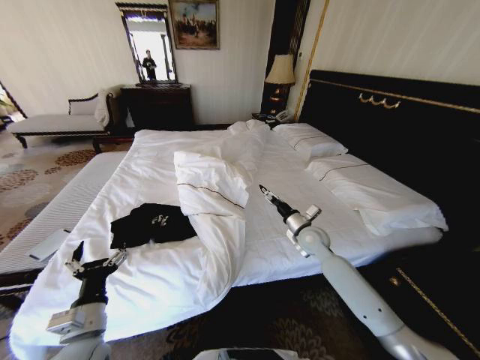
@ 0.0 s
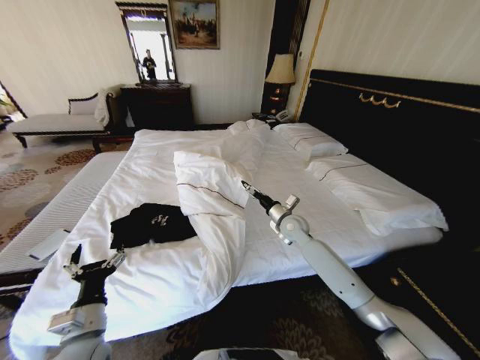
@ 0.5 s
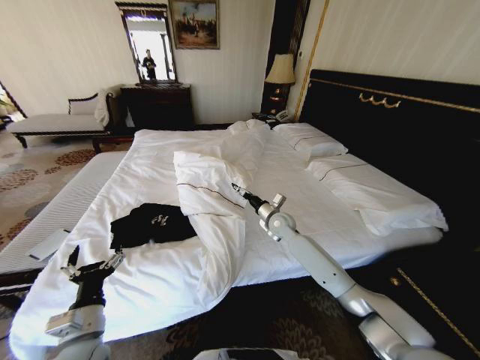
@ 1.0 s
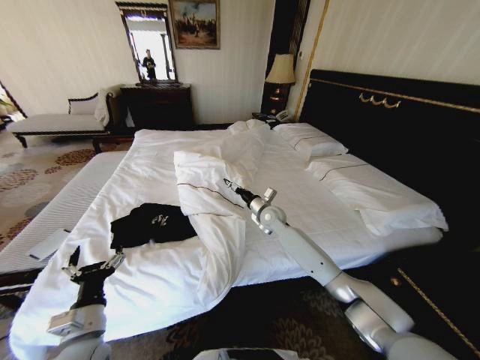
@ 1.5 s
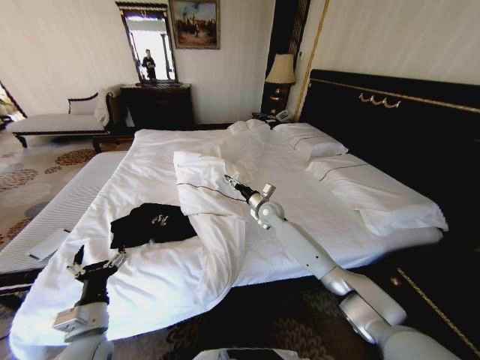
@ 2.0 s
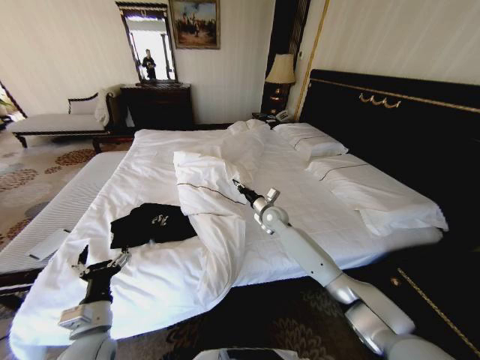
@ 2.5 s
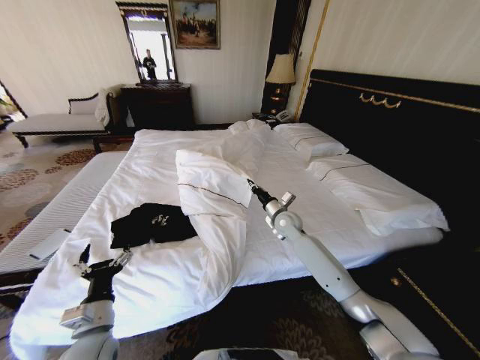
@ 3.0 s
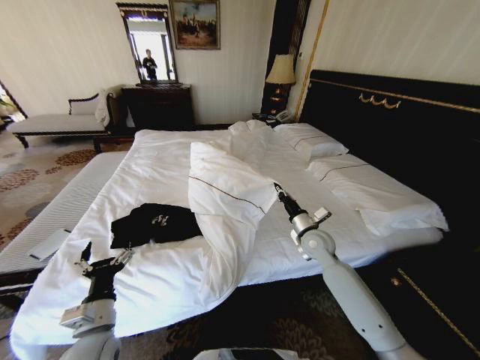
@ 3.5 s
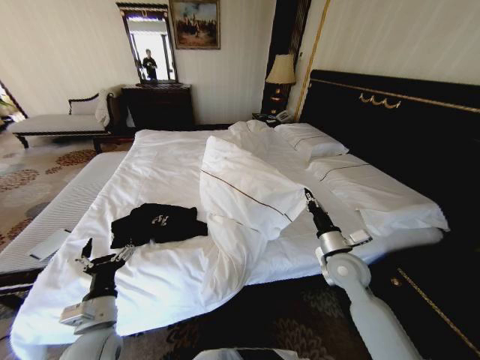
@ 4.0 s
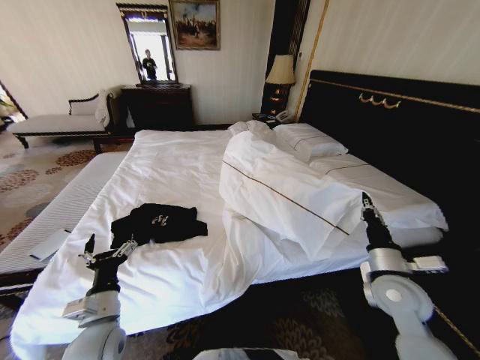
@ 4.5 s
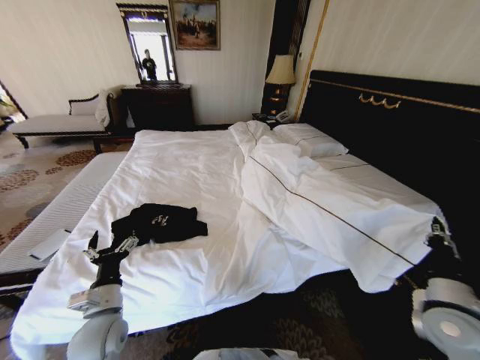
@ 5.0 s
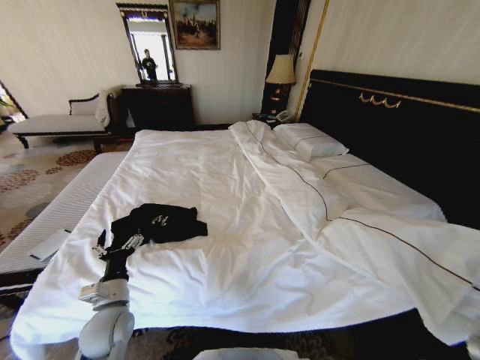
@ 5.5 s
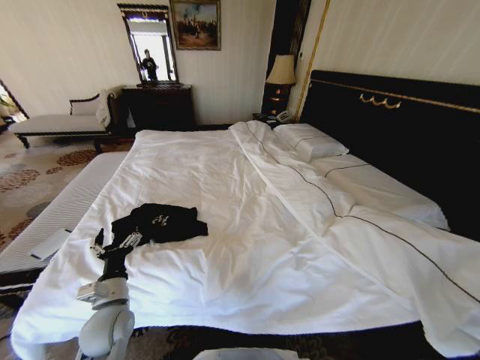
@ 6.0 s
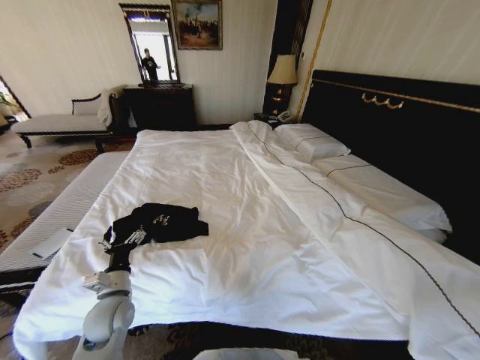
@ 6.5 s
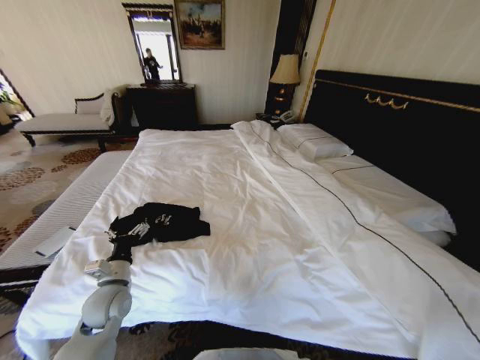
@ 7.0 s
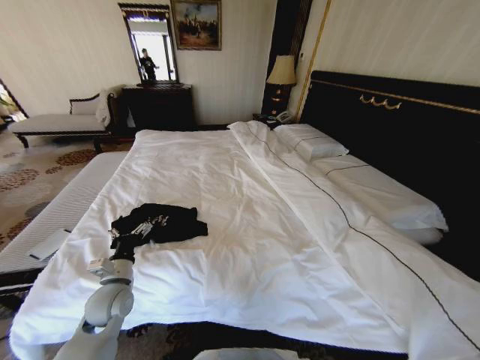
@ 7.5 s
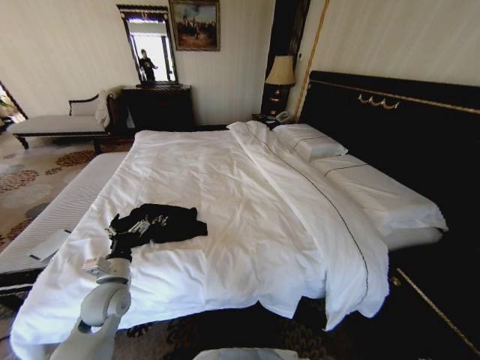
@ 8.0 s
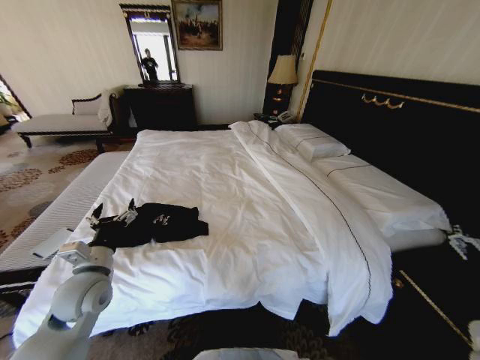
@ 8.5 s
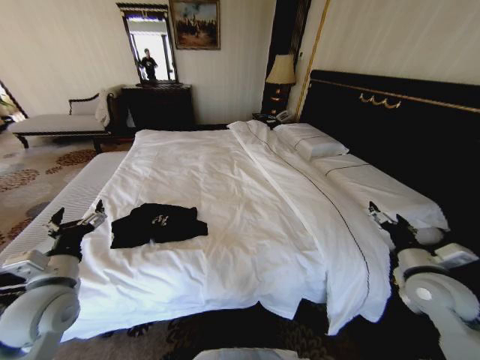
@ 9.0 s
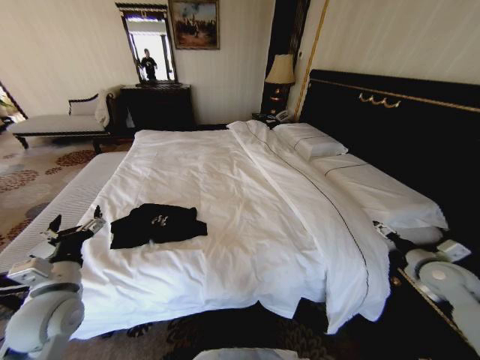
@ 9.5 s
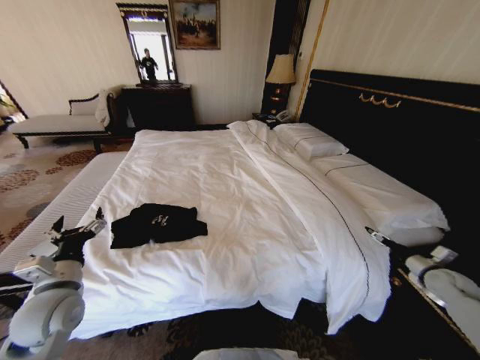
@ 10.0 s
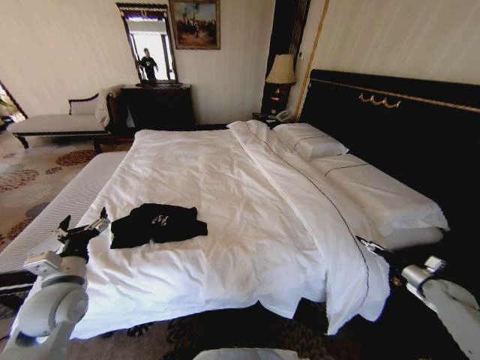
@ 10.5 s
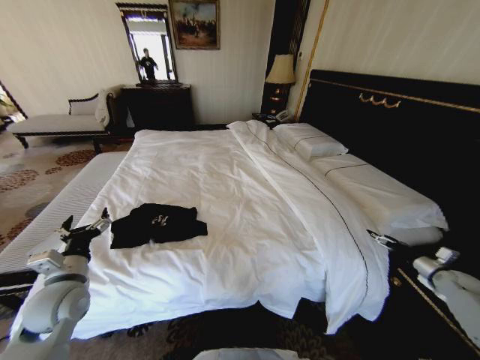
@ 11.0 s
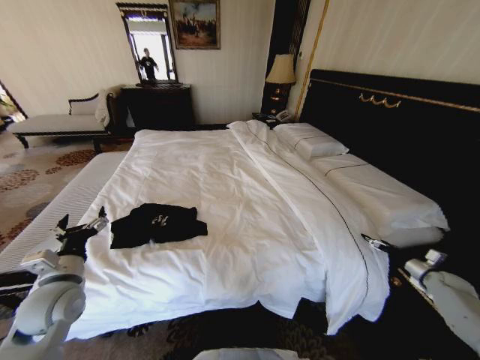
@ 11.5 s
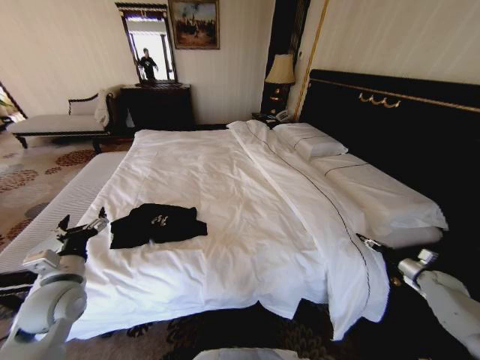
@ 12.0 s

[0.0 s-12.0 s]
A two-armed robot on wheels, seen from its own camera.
Task of the whole recording: Fold the clothes on the bed.
0.0 to 2.0 s: The right gripper travels forward and to the left by some 15 cm.
2.0 to 4.0 s: The right gripper travels backward and to the right by some 25 cm, and closes.
4.0 to 6.0 s: The right gripper goes roughly 30 cm backward and to the right. Meanwhile the left gripper ends up about 5 cm from where it was.
6.0 to 8.0 s: The right gripper is displaced backward by some 10 cm, and opens its fingers; the left gripper moves forward, roughly 5 cm.
8.0 to 10.0 s: The right gripper shifts about 35 cm forward and to the right, and opens up. The left gripper heads upward and to the left, covering approximately 10 cm.
10.0 to 12.0 s: The right gripper shifts roughly 10 cm downward and to the right, and closes its fingers.

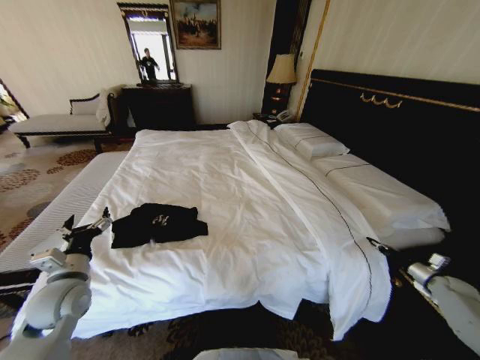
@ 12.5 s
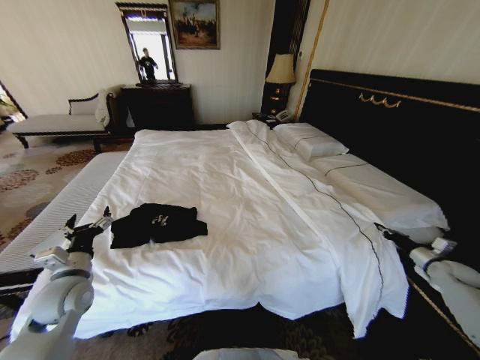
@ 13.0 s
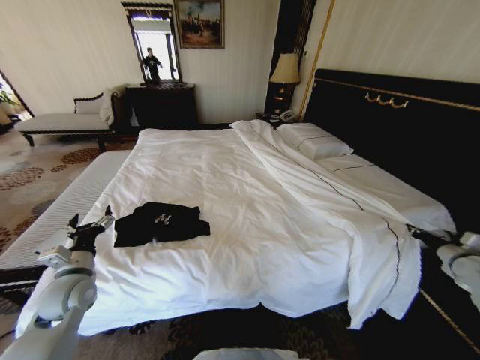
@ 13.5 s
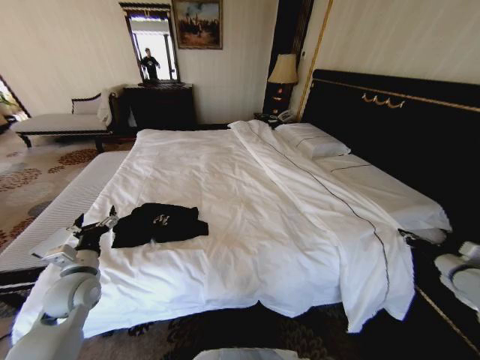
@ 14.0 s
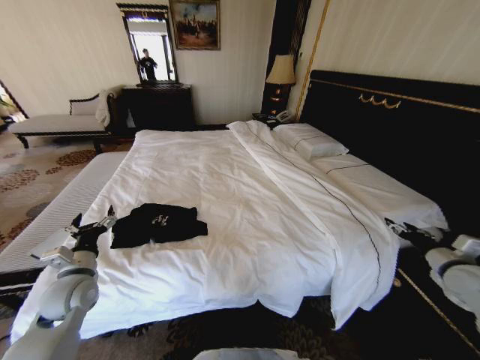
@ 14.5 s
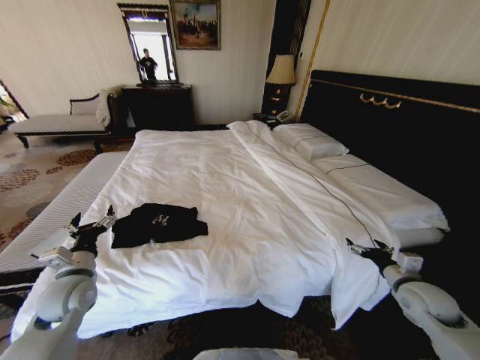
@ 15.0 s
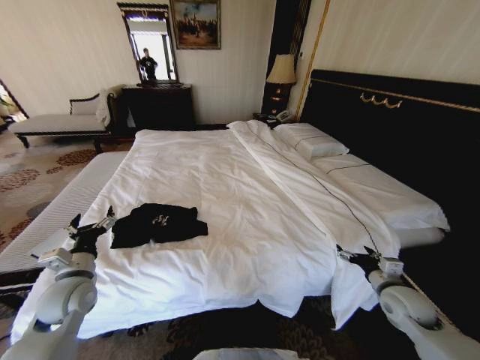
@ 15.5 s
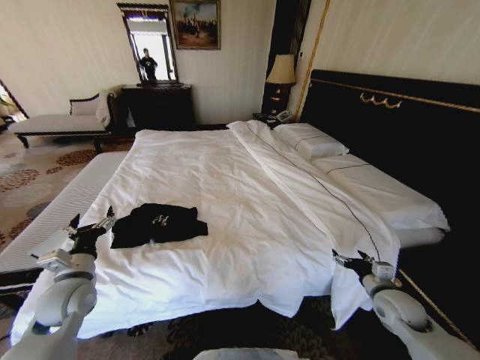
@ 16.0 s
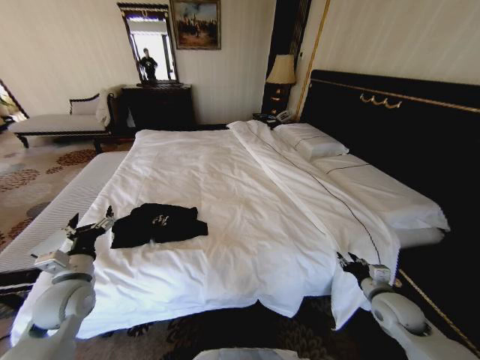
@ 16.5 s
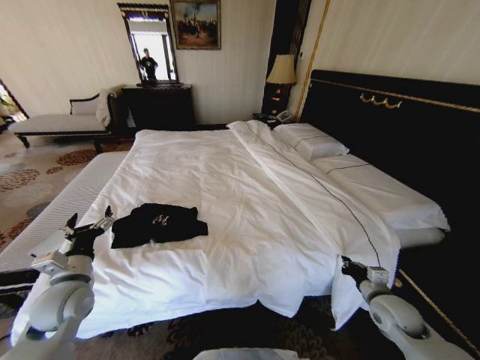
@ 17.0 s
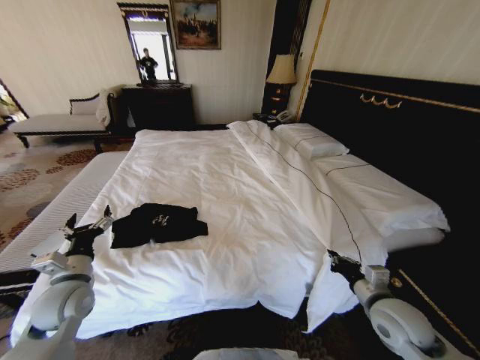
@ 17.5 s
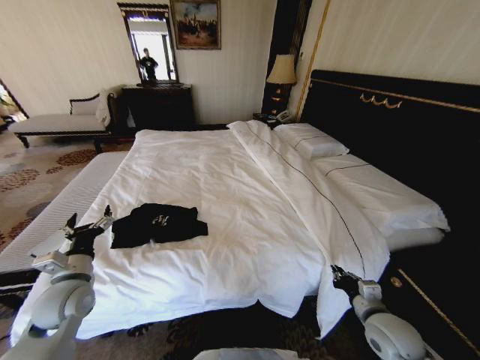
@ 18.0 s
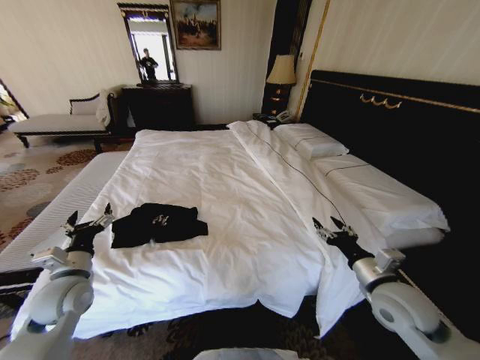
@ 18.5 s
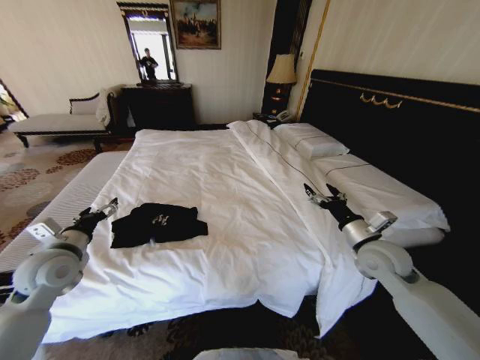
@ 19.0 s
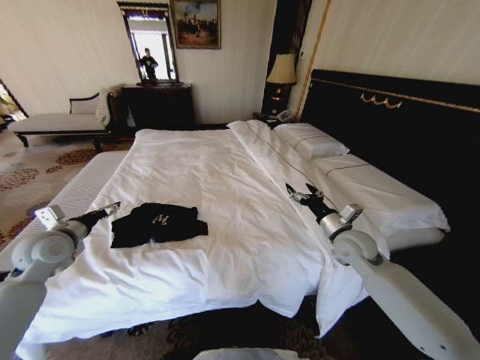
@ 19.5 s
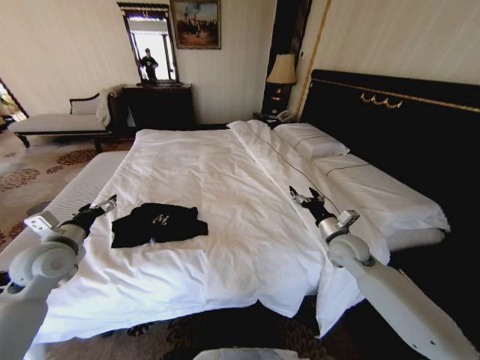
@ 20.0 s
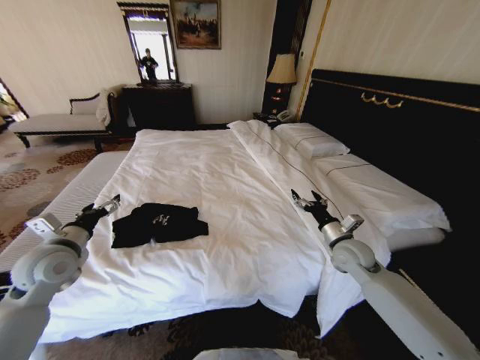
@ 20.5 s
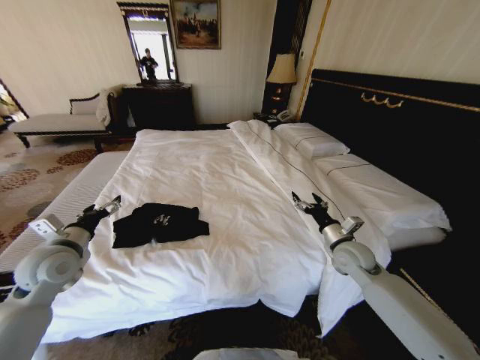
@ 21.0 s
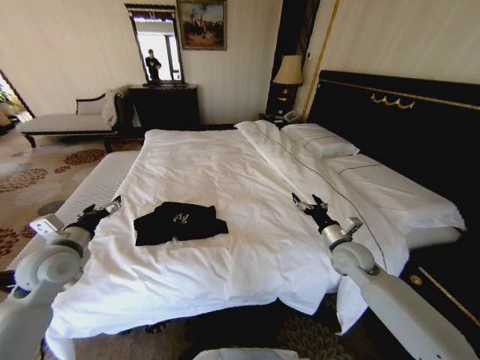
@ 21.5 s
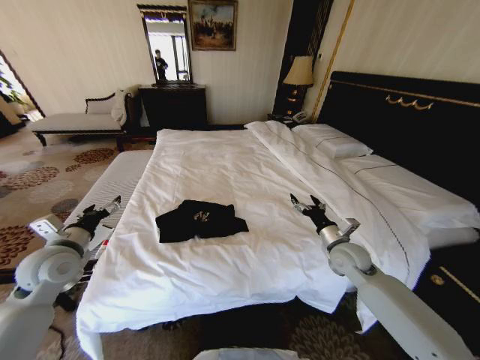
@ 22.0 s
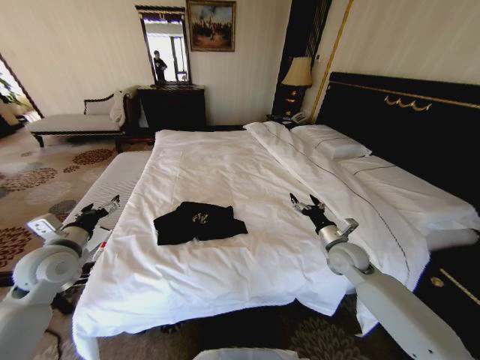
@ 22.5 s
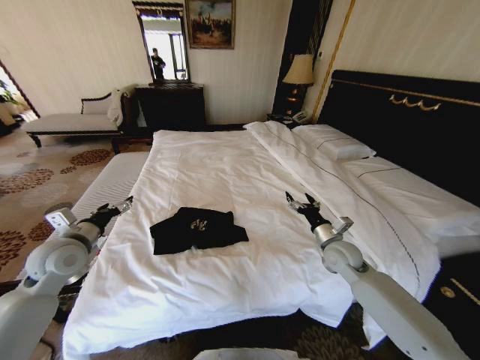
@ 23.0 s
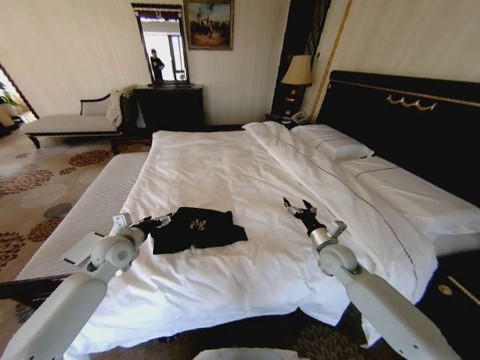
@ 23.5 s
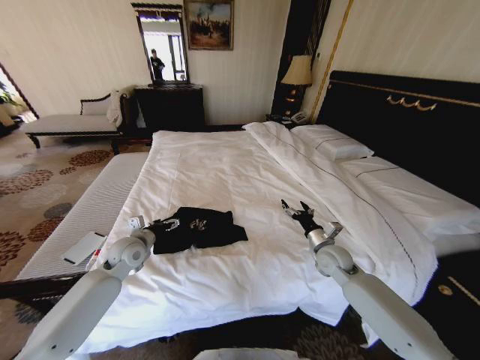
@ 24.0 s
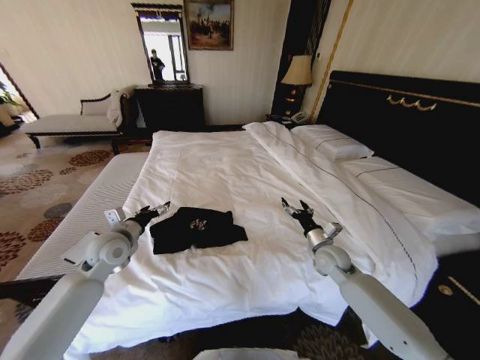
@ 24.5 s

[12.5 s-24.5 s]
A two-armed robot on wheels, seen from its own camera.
Task of the whole recording: Fold the clothes on the bed.
12.5 to 14.5 s: The right gripper shifts roughly 20 cm upward and to the left, and opens its fingers.
14.5 to 16.5 s: The right gripper goes roughly 20 cm to the left and downward, and opens and closes again.
16.5 to 18.5 s: The right gripper swings up and down, about 10 cm each way, with 2 reversals, and closes, then reopens.
18.5 to 20.5 s: The right gripper goes roughly 15 cm forward, and opens. Meanwhile the left gripper is displaced upward by about 5 cm.
22.5 to 24.5 s: The left gripper is displaced to the right and forward by about 10 cm.

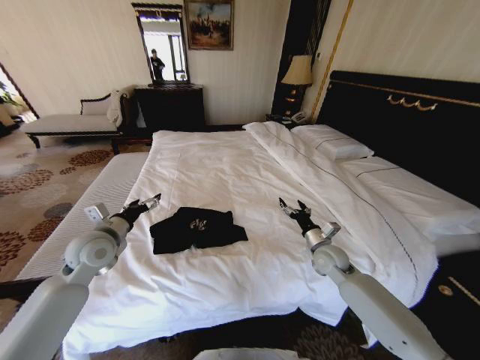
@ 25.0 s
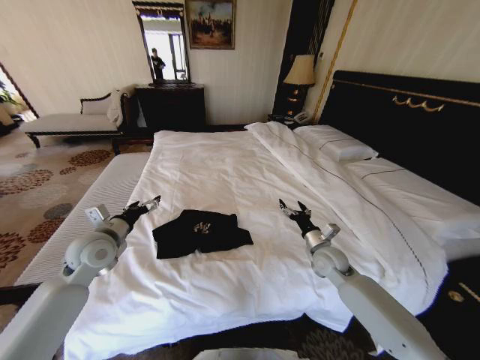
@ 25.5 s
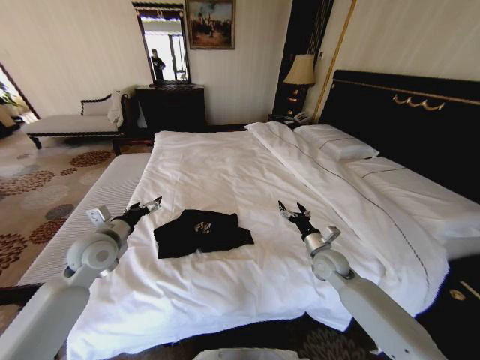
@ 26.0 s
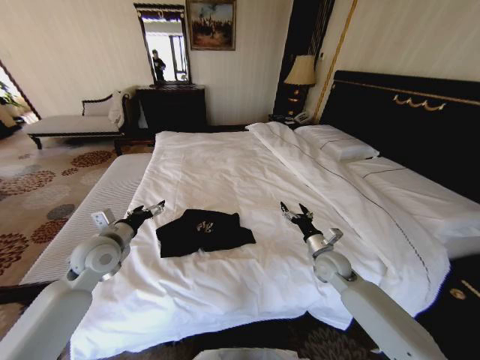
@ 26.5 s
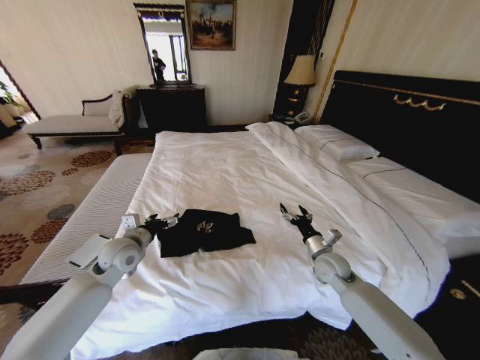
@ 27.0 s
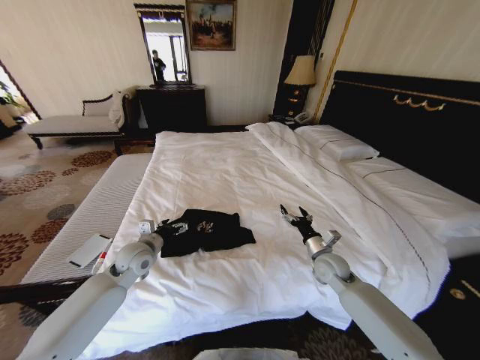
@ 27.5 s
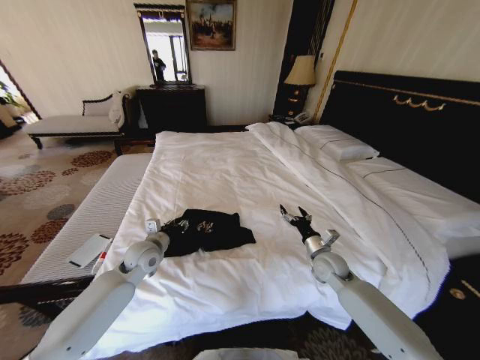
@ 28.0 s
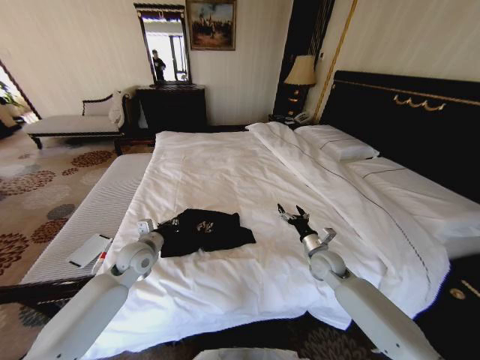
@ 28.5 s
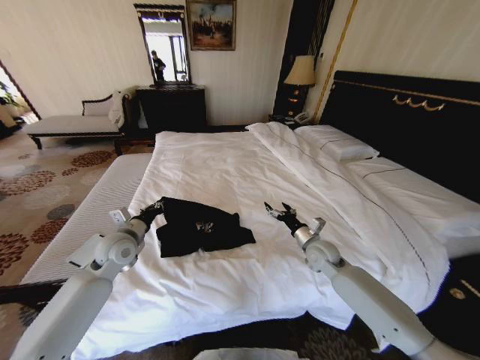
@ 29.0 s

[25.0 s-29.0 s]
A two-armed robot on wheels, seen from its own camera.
Task of the whole recording: Fold the clothes on the bed.
25.0 to 27.0 s: The left gripper is displaced downward by roughly 5 cm.
27.0 to 29.0 s: The left gripper closes its fingers.
